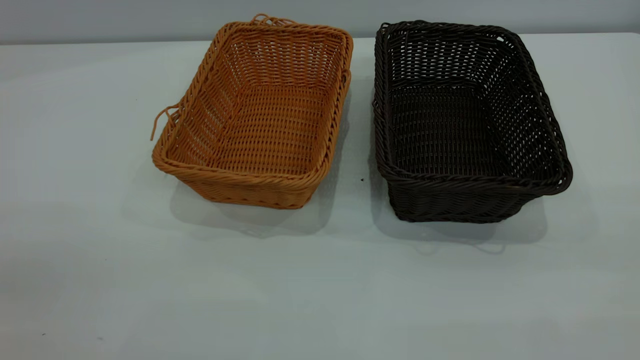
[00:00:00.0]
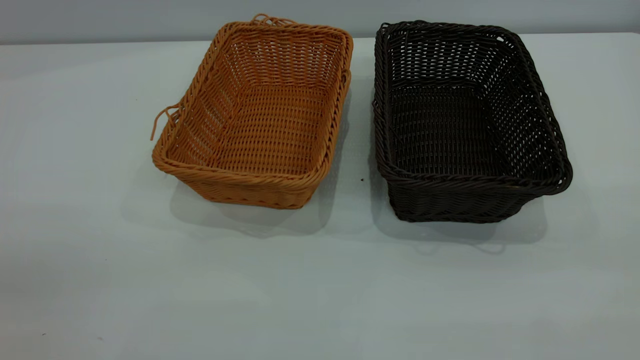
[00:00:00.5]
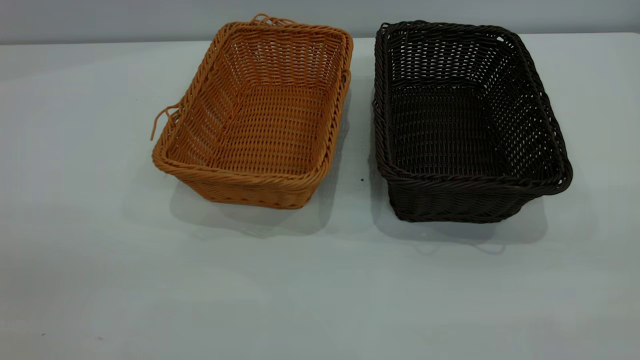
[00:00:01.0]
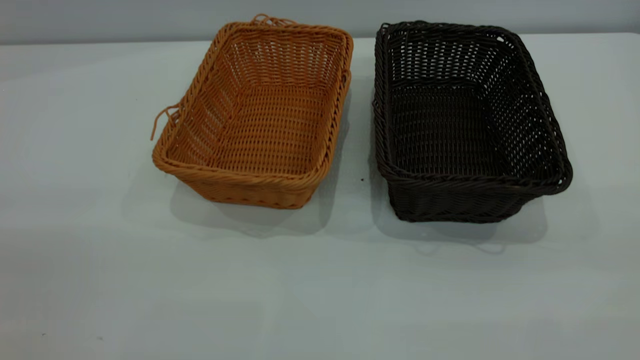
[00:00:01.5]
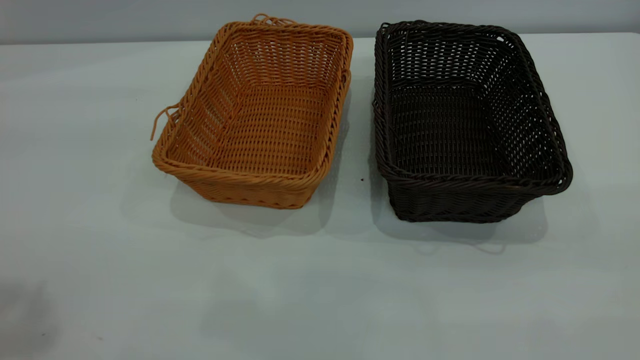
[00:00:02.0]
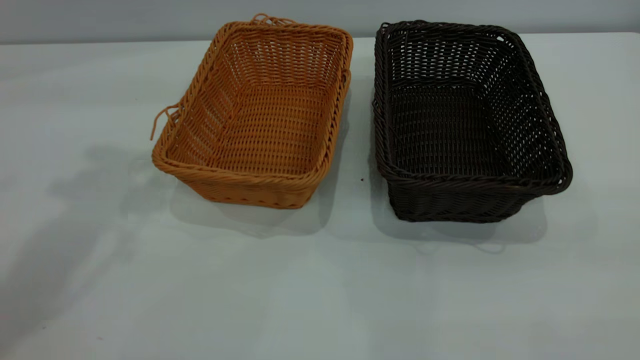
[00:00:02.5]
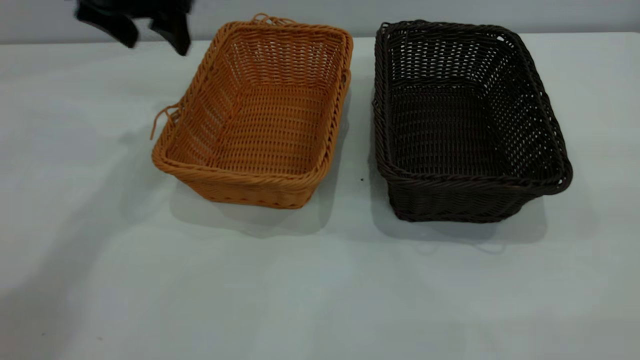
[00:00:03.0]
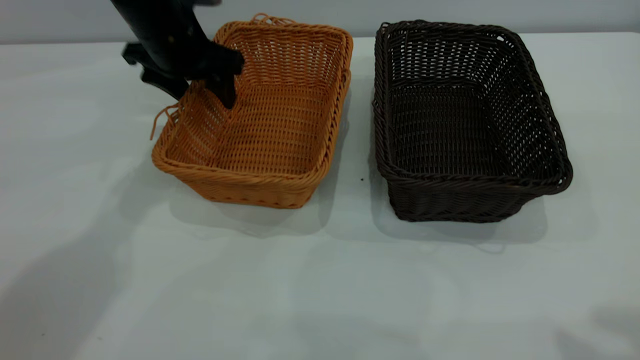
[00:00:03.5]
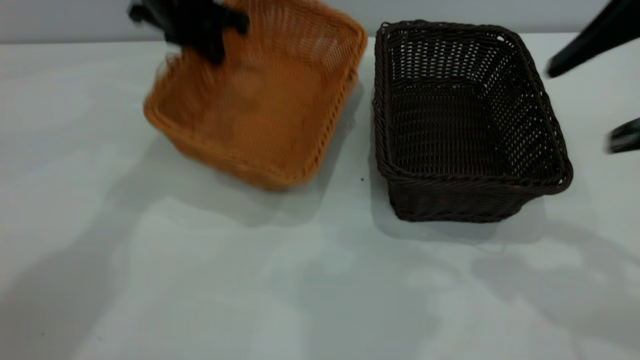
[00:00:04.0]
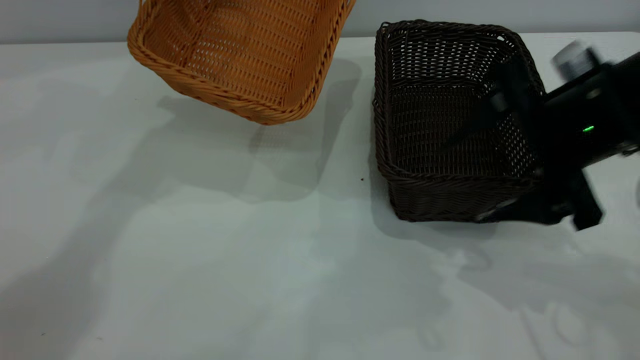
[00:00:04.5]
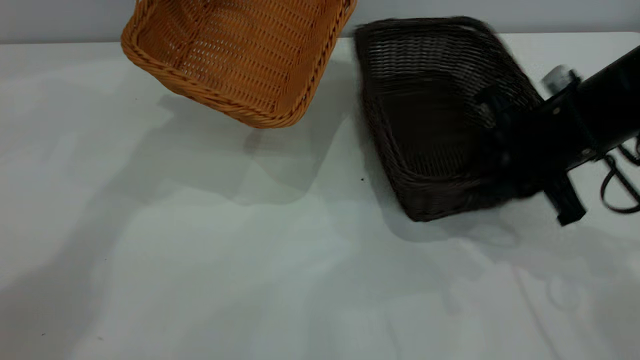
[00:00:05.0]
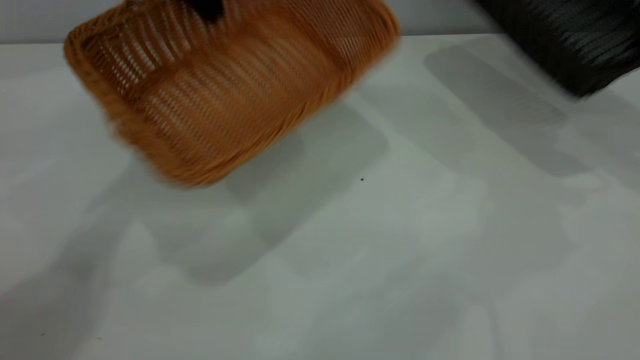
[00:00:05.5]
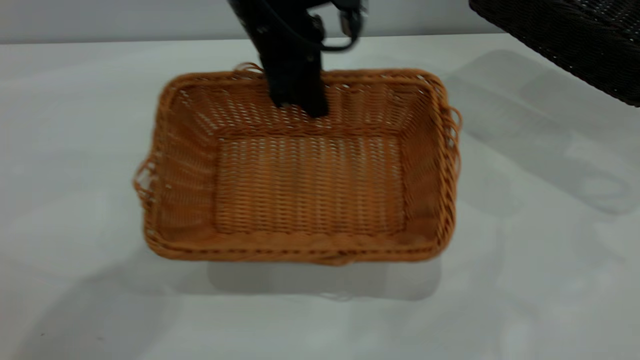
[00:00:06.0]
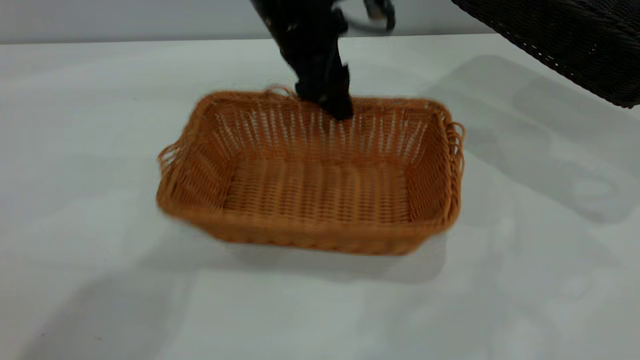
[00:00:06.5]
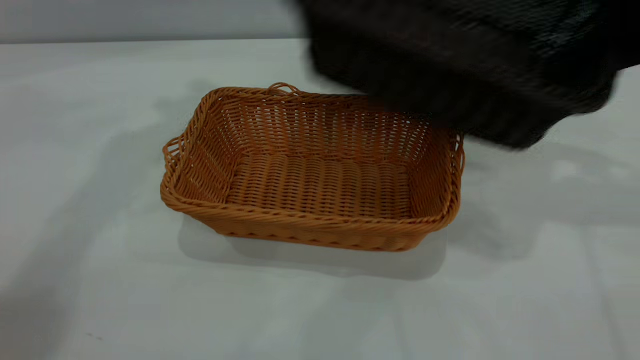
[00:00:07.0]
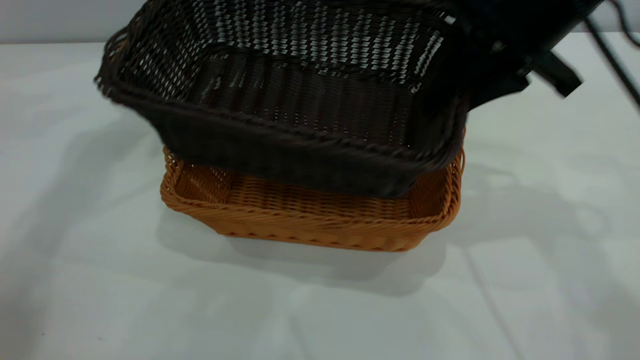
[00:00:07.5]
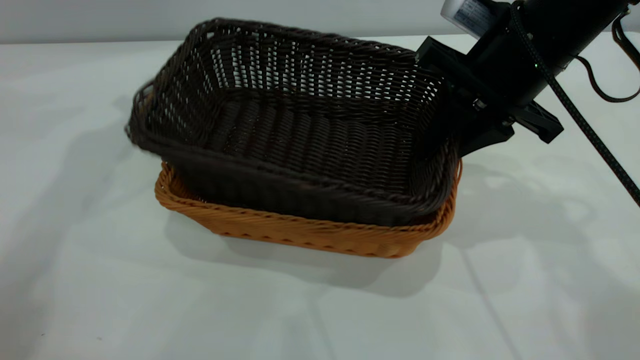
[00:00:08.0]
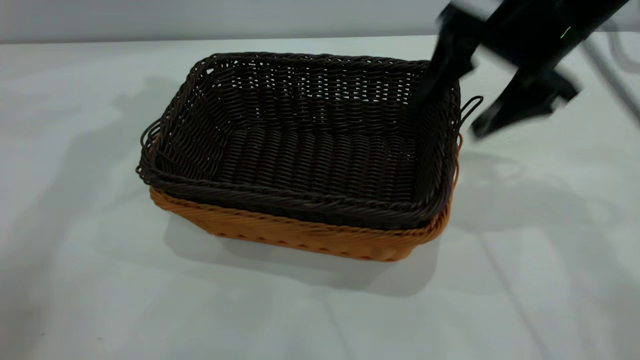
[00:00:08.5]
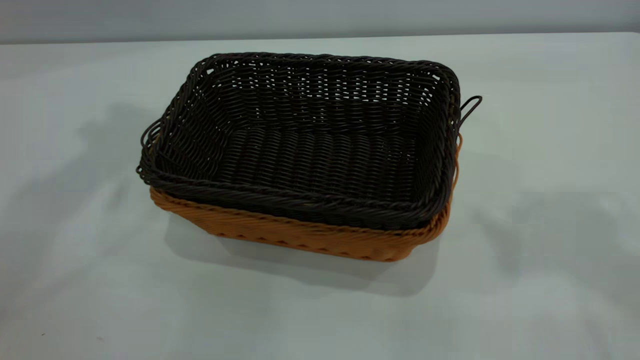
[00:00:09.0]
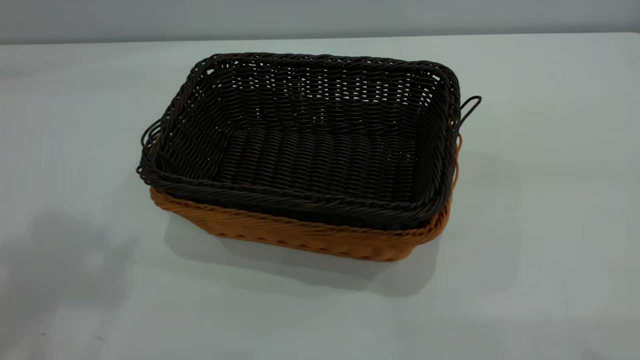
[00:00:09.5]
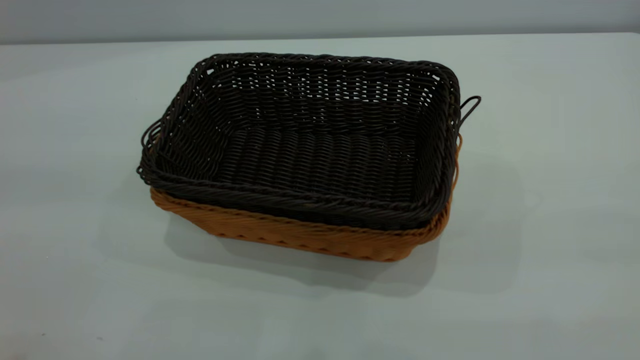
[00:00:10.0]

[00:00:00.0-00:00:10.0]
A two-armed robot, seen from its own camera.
Task of the whole recording: the left gripper grasp the brown basket and place it in the center of the table, the right gripper grasp the black basket and place it inside the brown one.
Step, 00:00:00.0 to 00:00:05.0: Pick up the light basket with the right gripper.
Step, 00:00:05.5 to 00:00:06.5: Place the light-colored basket in the center.
Step, 00:00:07.0 to 00:00:08.5: Place the dark basket on top of the light basket.
00:00:02.0 to 00:00:04.0: The right gripper goes some 25 cm forward, while the left gripper travels forward, downward and to the right by about 40 cm, and closes its fingers.
00:00:04.0 to 00:00:06.0: The right gripper travels to the right and forward by approximately 20 cm, and closes. The left gripper is displaced to the right and backward by some 15 cm.
00:00:06.0 to 00:00:08.0: The left gripper heads to the left and upward, covering roughly 25 cm, and opens its fingers; the right gripper is displaced to the left by about 25 cm.
00:00:08.0 to 00:00:10.0: The right gripper goes roughly 40 cm backward and upward, and opens up; the left gripper shifts roughly 40 cm backward.

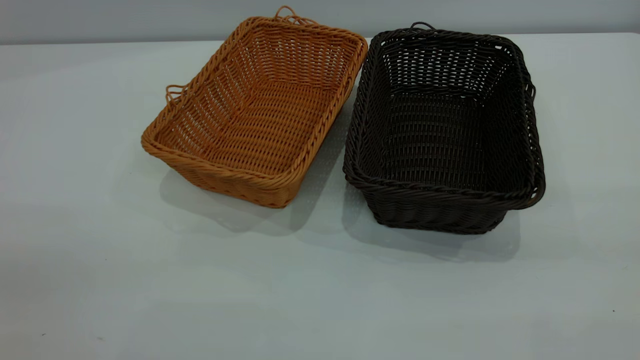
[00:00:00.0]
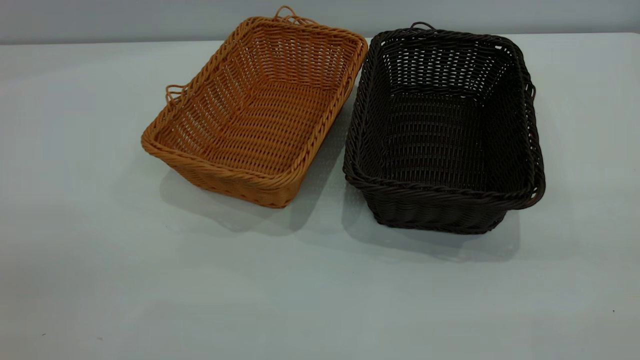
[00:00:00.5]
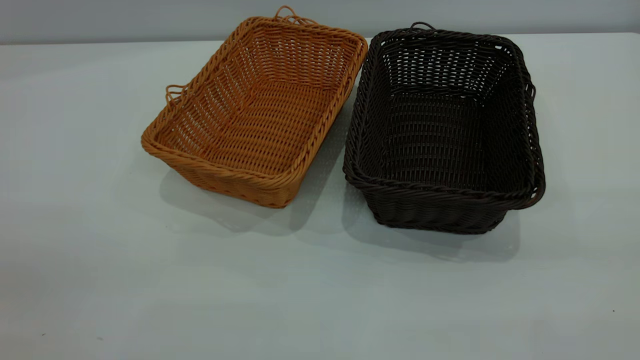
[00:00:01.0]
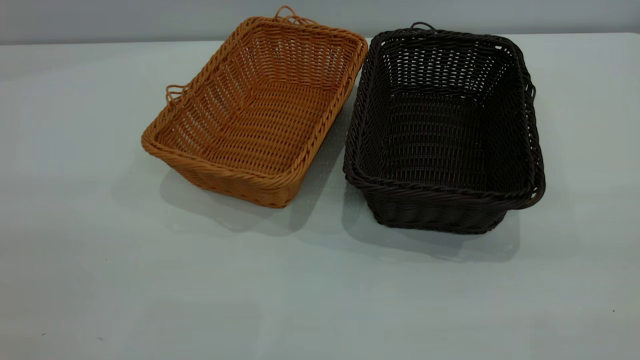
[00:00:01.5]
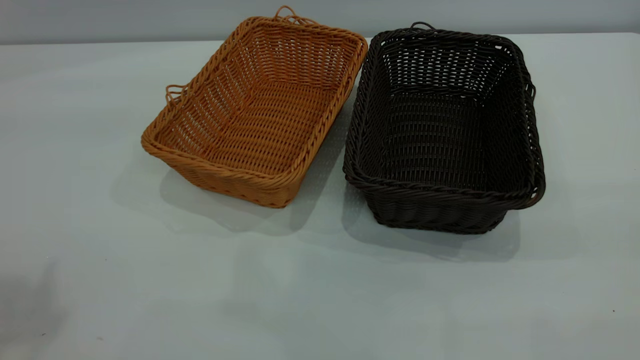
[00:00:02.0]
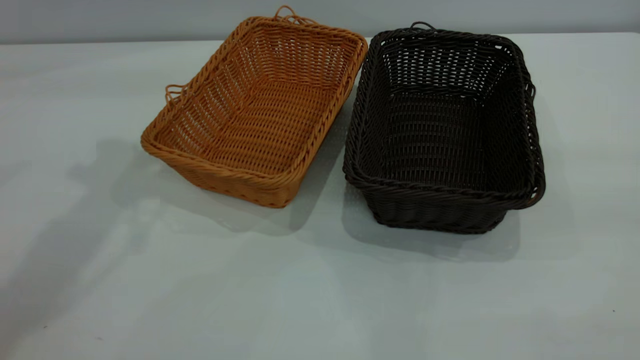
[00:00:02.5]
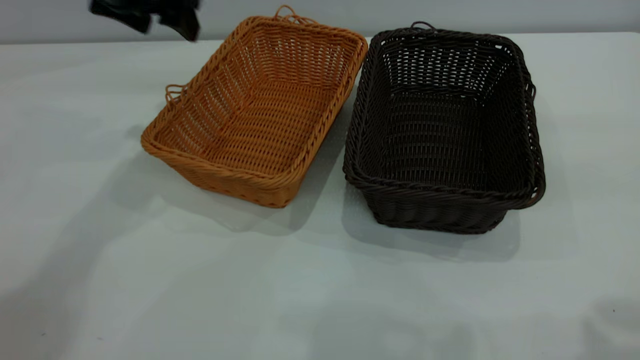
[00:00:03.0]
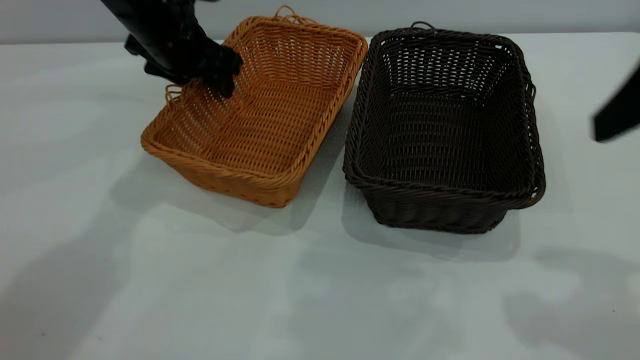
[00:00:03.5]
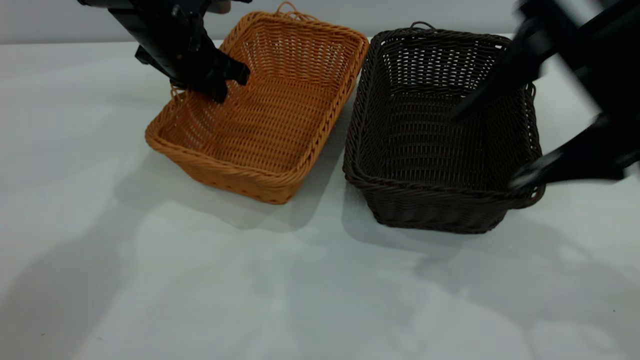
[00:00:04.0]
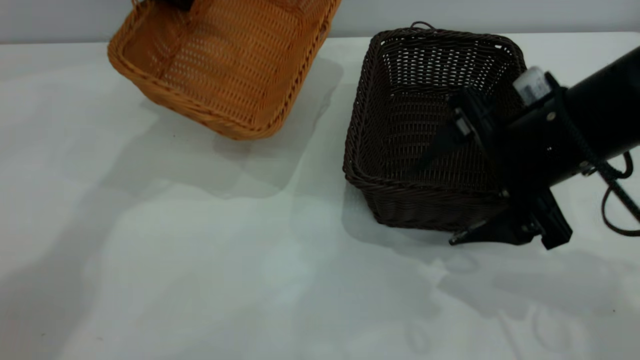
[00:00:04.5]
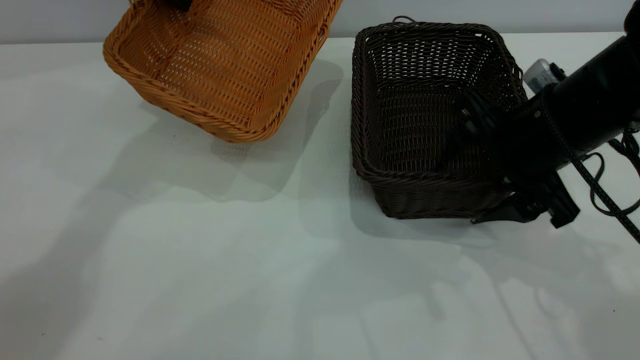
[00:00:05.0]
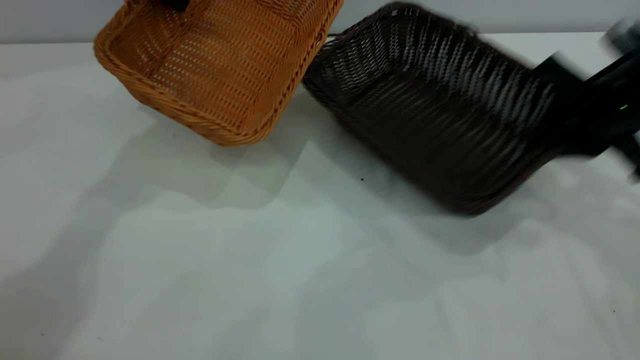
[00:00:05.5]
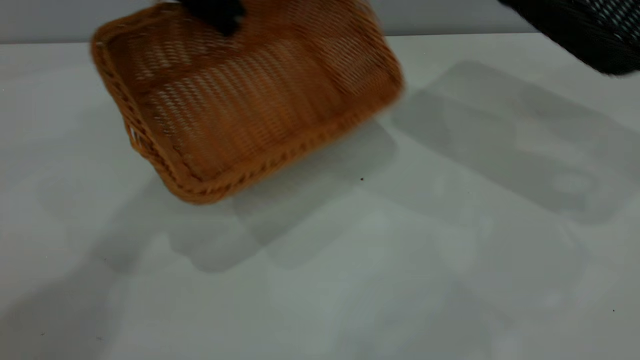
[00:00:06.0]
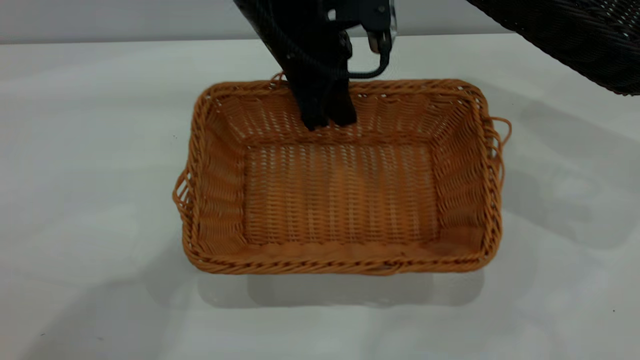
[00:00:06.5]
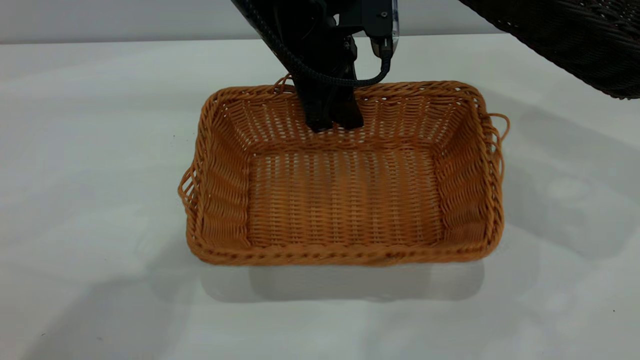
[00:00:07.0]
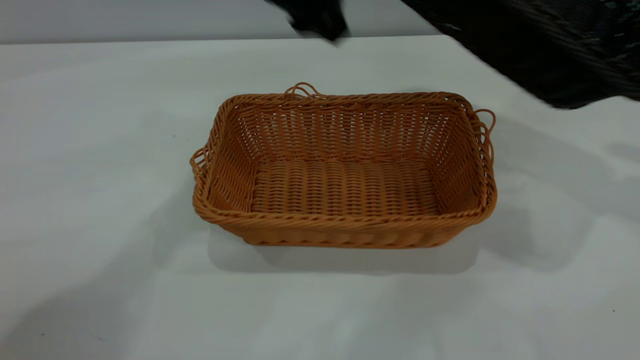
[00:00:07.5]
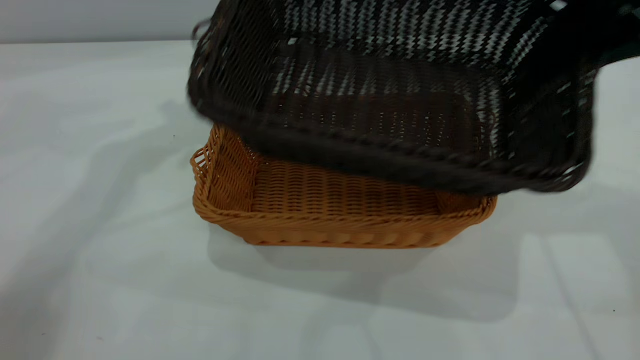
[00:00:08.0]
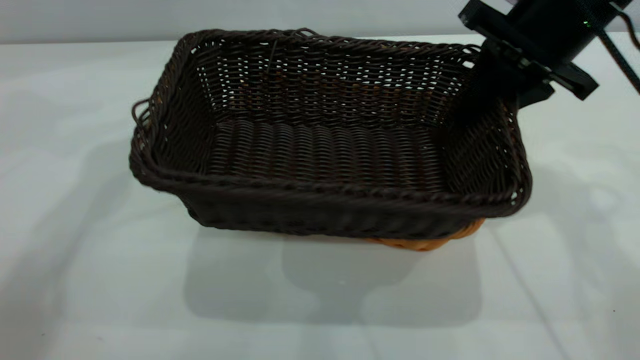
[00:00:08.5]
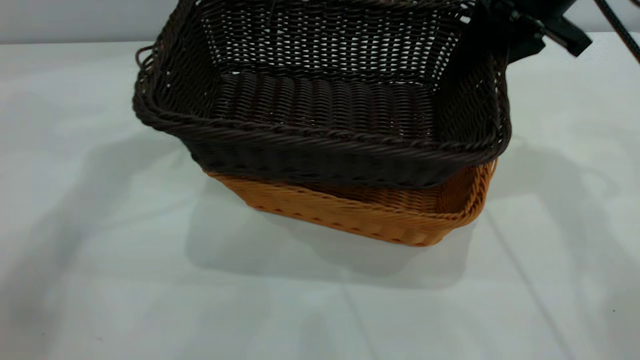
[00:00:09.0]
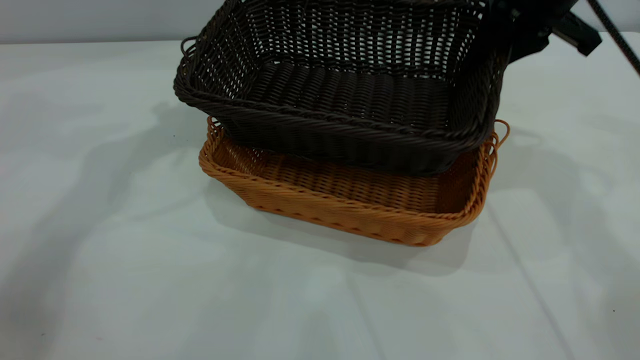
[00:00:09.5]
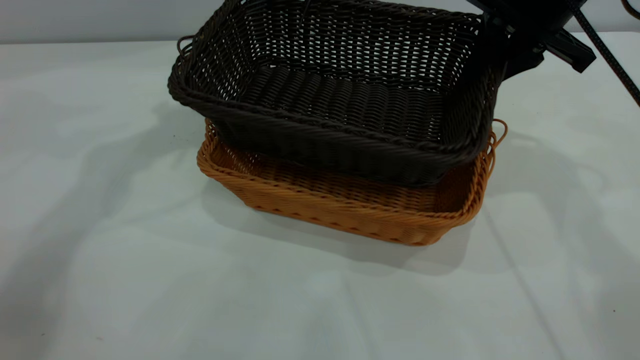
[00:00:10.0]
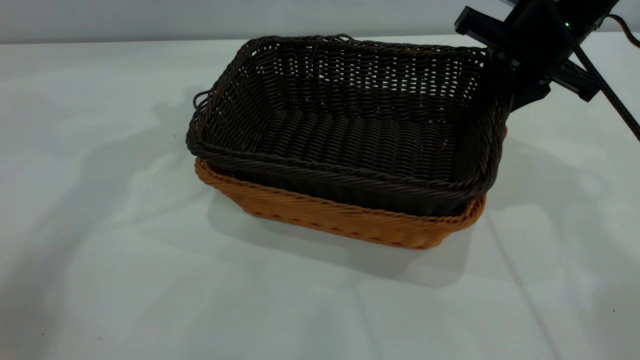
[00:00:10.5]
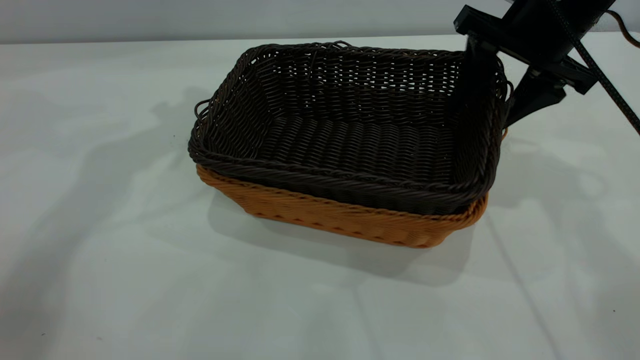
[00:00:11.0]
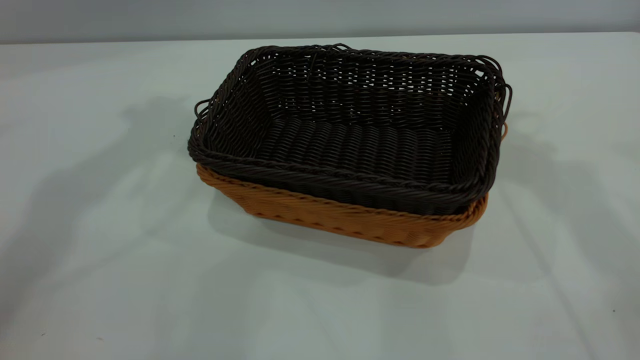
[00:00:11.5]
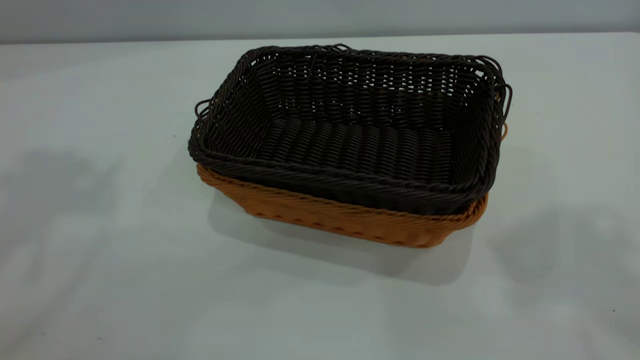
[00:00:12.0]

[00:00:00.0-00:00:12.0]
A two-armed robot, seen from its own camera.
Task of the whole recording: the left gripper grasp the brown basket and place it in the center of the table, the right gripper grasp the black basket and place it inside the brown one.
Step, 00:00:00.0 to 00:00:05.5: Pick up the light basket with the right gripper.
Step, 00:00:06.0 to 00:00:07.0: Place the light-colored basket in the center.
Step, 00:00:07.5 to 00:00:11.0: Place the dark basket on top of the light basket.
00:00:02.0 to 00:00:04.0: The left gripper heads forward, downward and to the right, covering some 40 cm, and closes; the right gripper goes approximately 30 cm forward, downward and to the left.
00:00:04.0 to 00:00:06.0: The left gripper shifts approximately 10 cm upward and to the right, while the right gripper goes approximately 25 cm to the right, and closes up.
00:00:06.0 to 00:00:08.0: The right gripper shifts some 20 cm to the left, while the left gripper shifts approximately 10 cm to the left and upward, and opens.
00:00:08.0 to 00:00:10.0: The right gripper shifts about 5 cm forward.
00:00:10.0 to 00:00:12.0: The right gripper heads upward and backward, covering approximately 35 cm, and opens, while the left gripper moves upward, backward and to the left, about 30 cm.
